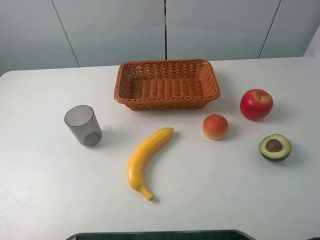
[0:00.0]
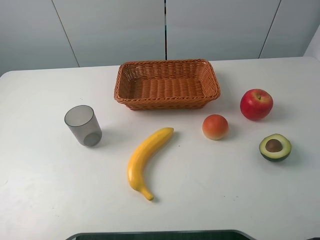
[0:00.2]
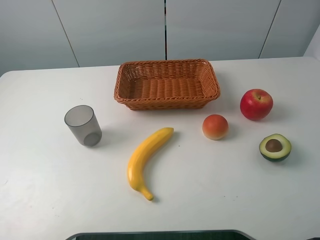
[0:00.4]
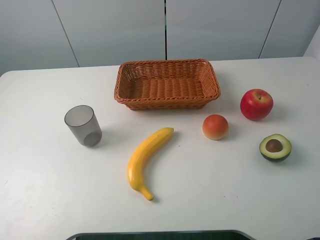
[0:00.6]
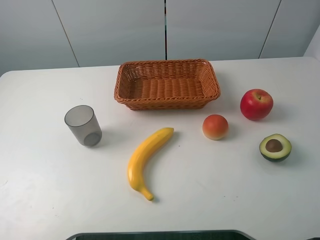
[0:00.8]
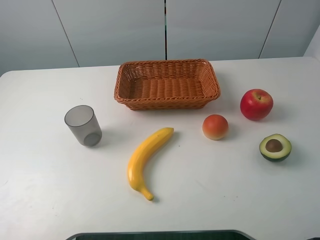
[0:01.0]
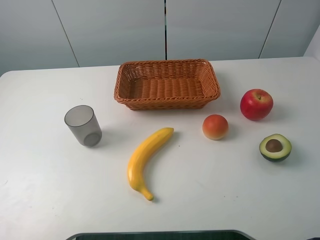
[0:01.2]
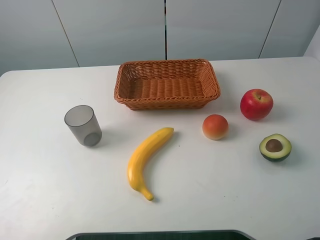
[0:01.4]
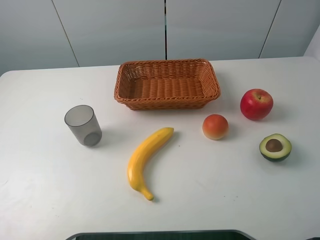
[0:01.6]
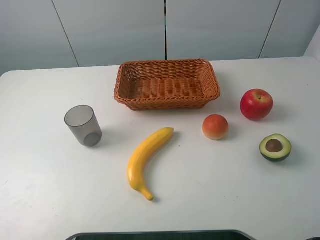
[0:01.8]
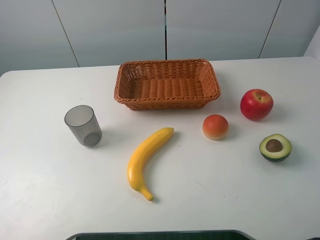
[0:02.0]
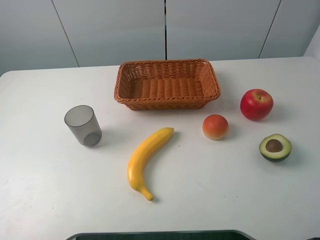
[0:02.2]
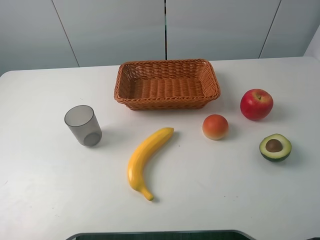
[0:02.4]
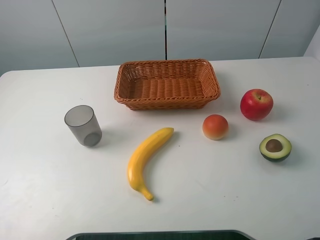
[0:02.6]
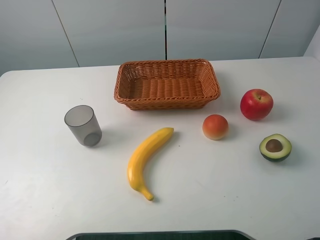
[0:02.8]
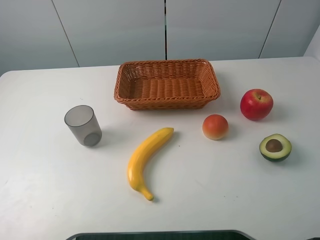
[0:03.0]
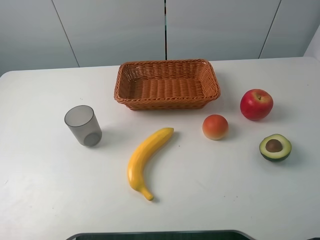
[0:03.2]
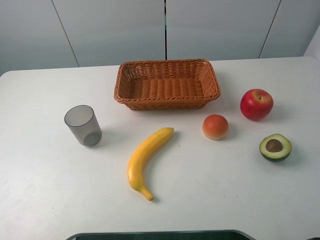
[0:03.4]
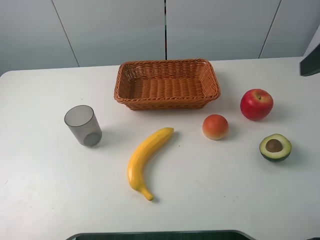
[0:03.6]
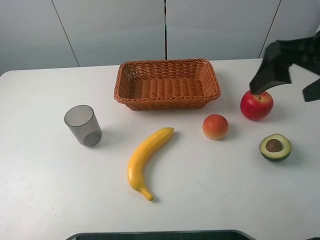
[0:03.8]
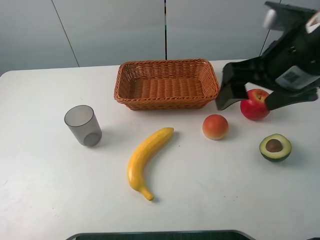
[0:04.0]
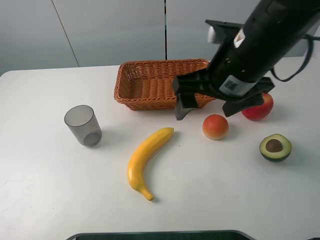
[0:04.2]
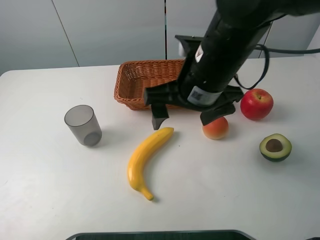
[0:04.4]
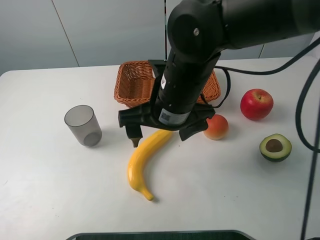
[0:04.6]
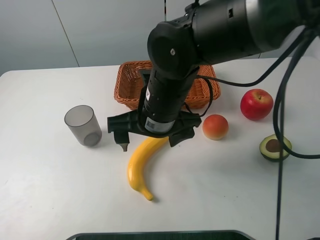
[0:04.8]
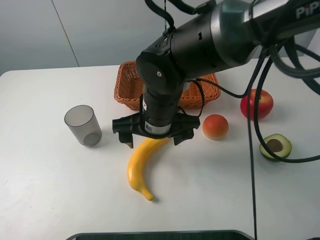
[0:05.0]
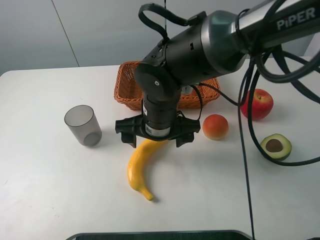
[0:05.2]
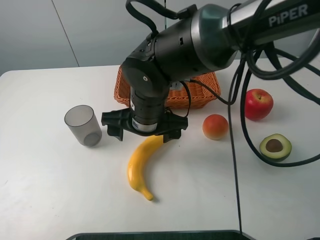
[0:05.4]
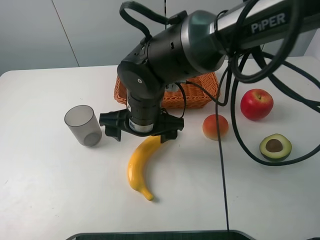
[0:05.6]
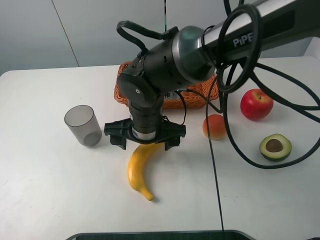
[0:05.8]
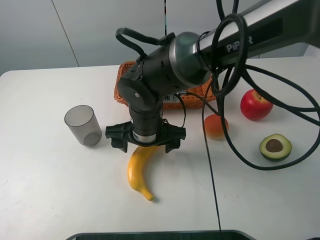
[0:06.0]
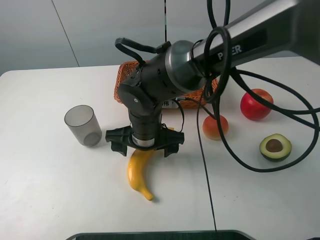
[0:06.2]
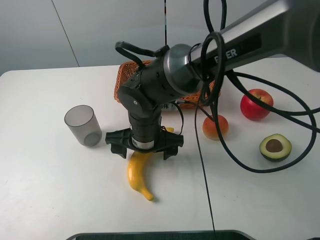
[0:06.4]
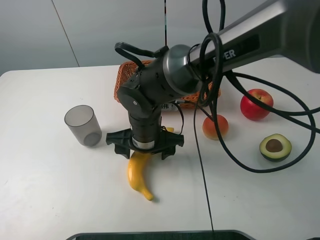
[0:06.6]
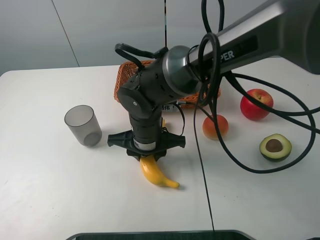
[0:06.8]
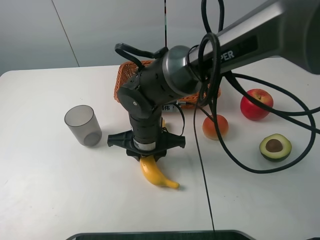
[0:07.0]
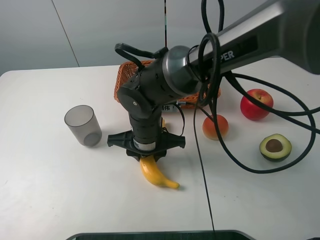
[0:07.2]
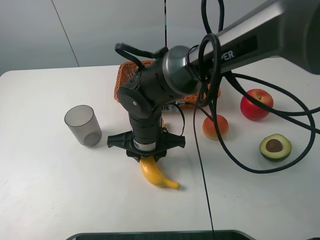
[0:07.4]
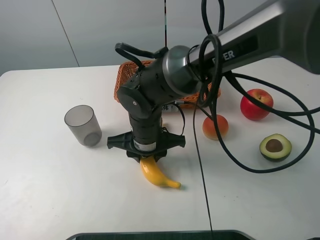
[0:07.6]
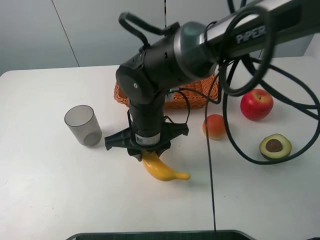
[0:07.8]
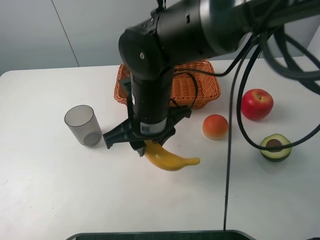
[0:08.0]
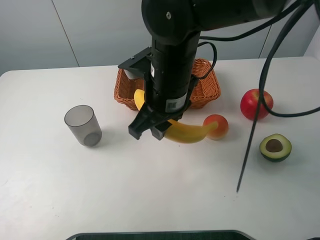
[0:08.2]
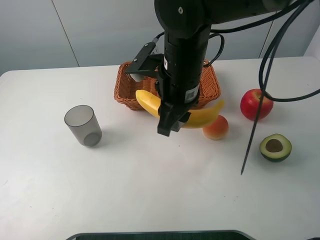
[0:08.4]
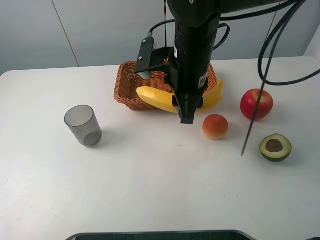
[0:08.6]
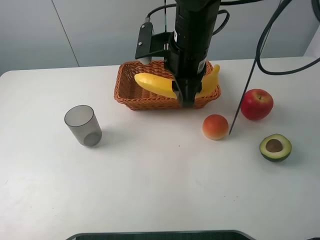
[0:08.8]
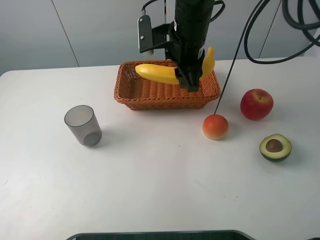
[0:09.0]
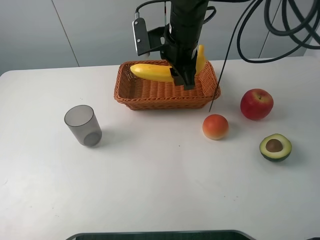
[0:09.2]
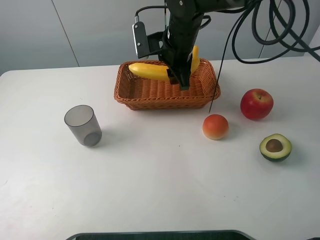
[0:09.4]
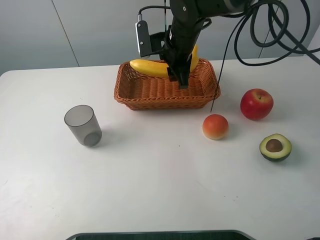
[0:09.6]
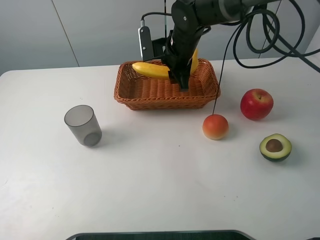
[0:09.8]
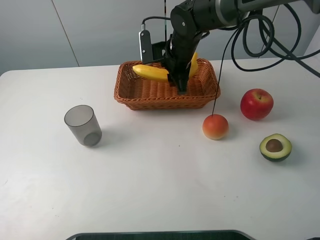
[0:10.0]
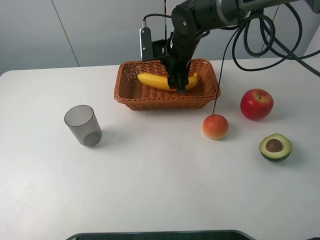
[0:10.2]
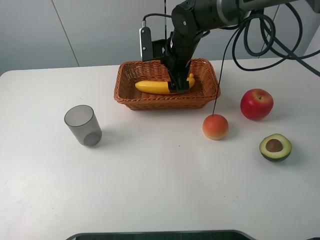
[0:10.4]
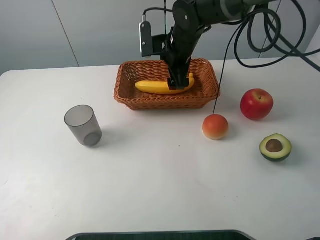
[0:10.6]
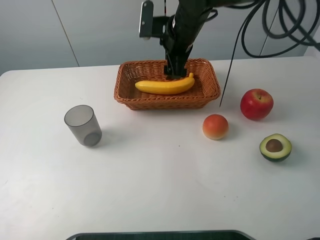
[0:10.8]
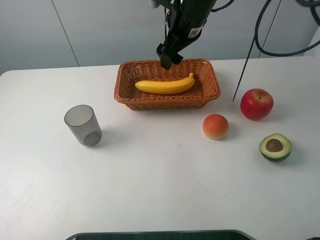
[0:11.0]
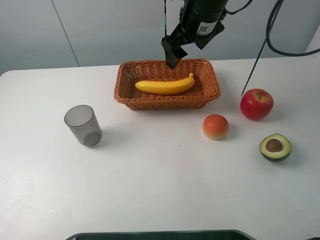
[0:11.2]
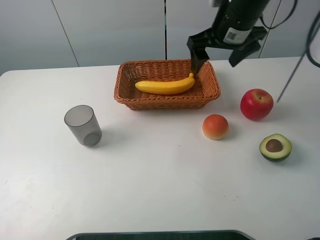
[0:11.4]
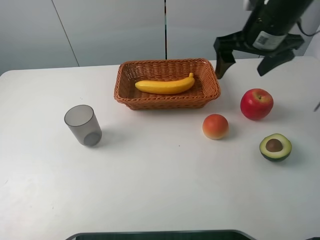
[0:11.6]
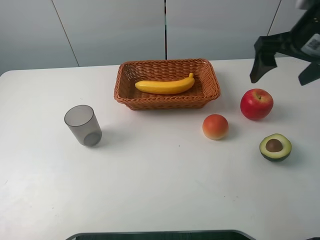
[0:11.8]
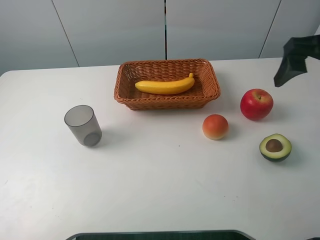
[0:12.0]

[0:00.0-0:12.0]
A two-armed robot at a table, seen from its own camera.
Task of the whole recording: randomly pick up an item from the table and put it in the basket.
Step, 0:00.0 to 0:06.8: Grasp the banana with the right gripper.
Step, 0:07.0 to 0:11.0: Place the banana into the basket with the right gripper.
0:03.0 to 0:04.4: The right gripper travels to the left, downward and forward by roughly 30 cm.
0:04.4 to 0:06.0: The right gripper goes about 15 cm downward and to the left.
0:06.0 to 0:07.6: The right gripper closes.
0:07.6 to 0:09.0: The right gripper heads upward, forward and to the right, covering roughly 20 cm.
0:09.0 to 0:10.4: The right gripper moves downward and forward, approximately 10 cm, and opens up.
0:10.4 to 0:12.0: The right gripper heads to the right, backward and upward, covering some 30 cm.

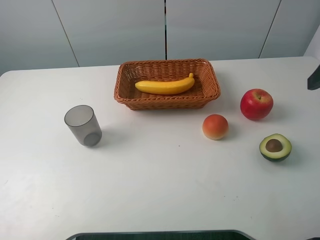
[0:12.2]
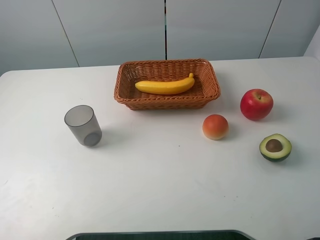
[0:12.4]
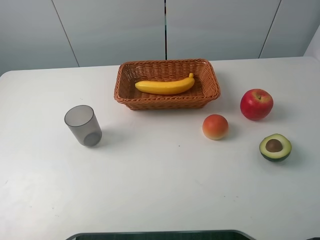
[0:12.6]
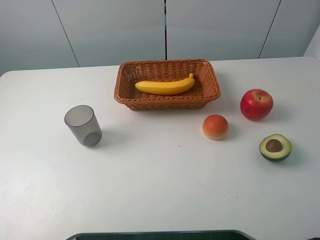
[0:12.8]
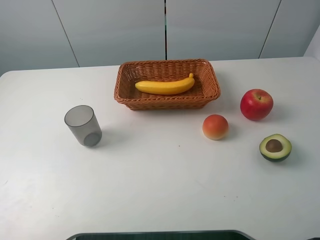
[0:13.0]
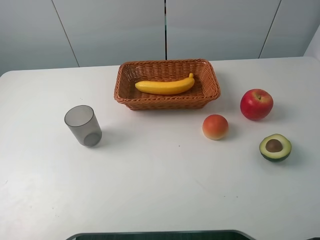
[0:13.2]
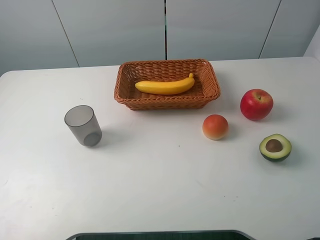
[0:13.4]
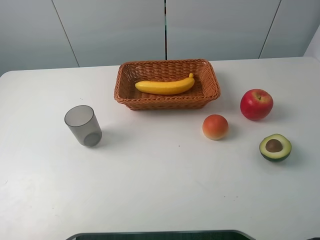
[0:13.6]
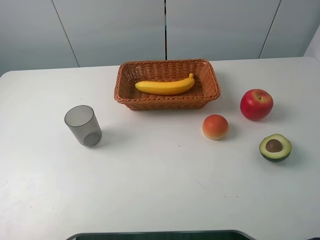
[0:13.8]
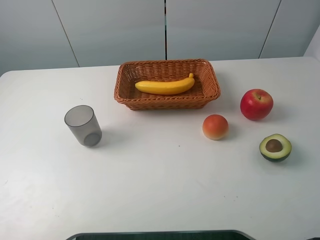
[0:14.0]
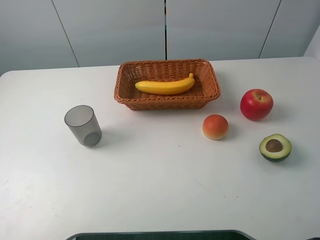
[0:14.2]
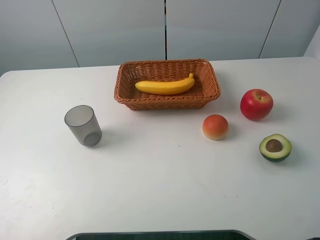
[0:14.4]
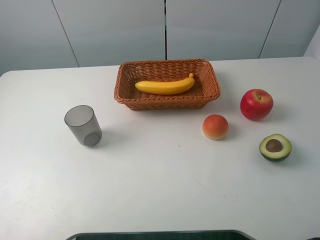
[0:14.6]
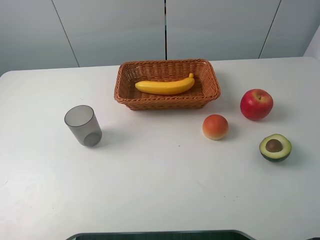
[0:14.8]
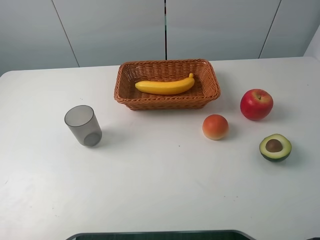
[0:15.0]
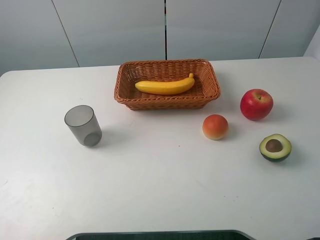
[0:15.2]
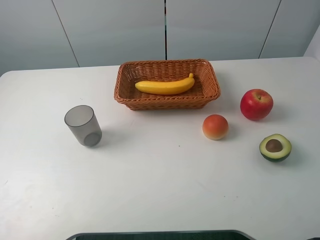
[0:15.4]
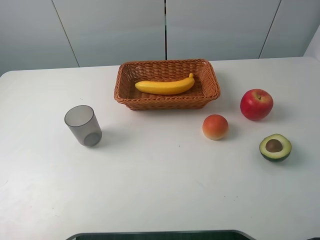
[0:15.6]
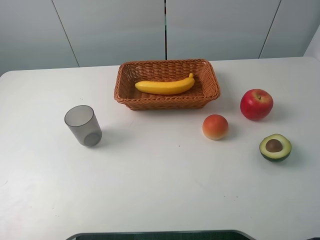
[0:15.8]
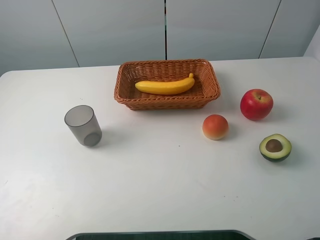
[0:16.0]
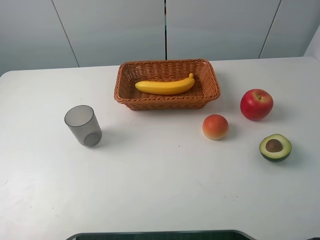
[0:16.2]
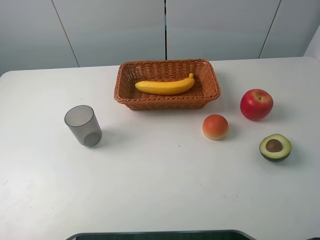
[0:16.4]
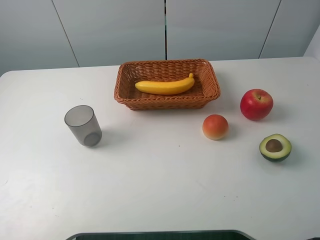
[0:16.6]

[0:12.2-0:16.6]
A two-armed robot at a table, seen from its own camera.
Task of the whole recording: randomly pick up an item from the table and put it in the basket.
0:15.2 to 0:16.6: Both grippers stay put.

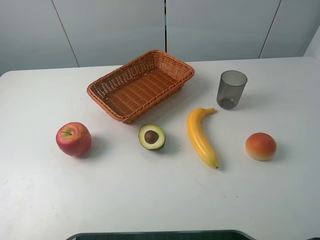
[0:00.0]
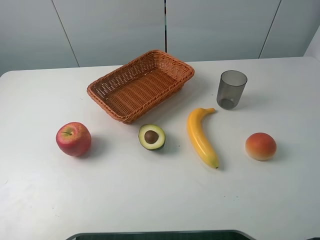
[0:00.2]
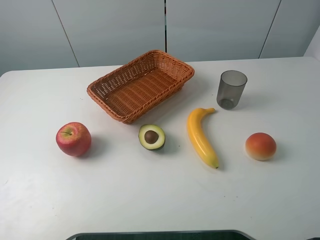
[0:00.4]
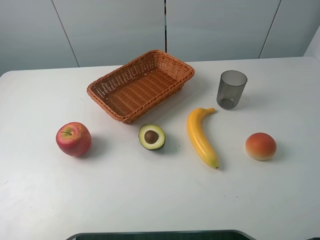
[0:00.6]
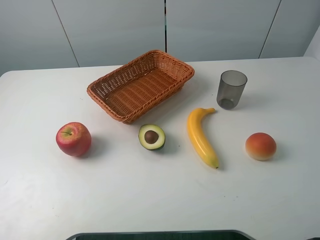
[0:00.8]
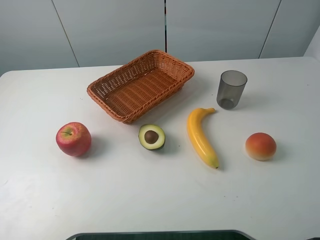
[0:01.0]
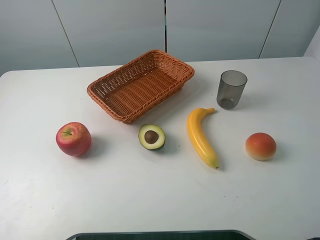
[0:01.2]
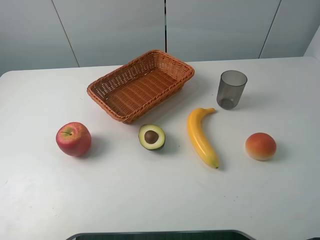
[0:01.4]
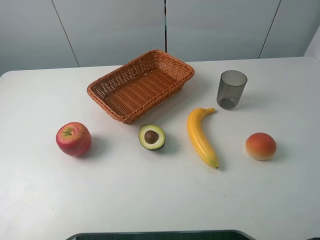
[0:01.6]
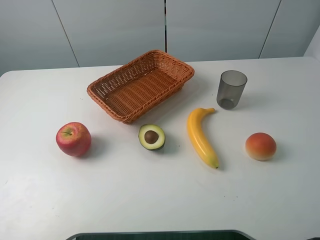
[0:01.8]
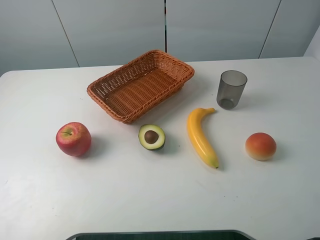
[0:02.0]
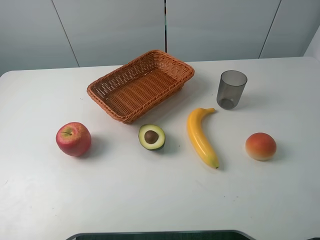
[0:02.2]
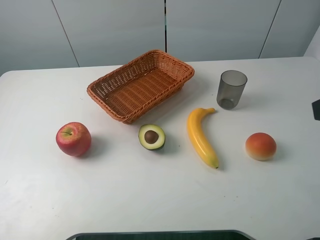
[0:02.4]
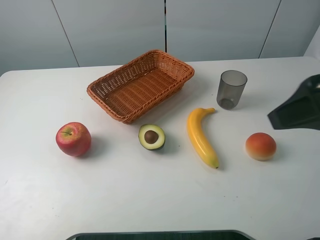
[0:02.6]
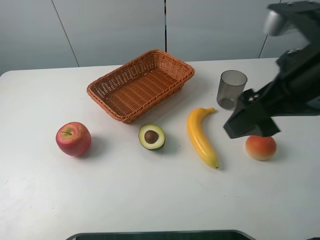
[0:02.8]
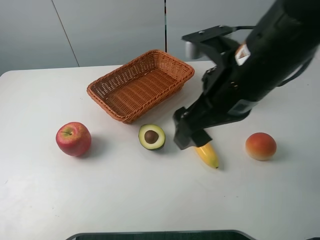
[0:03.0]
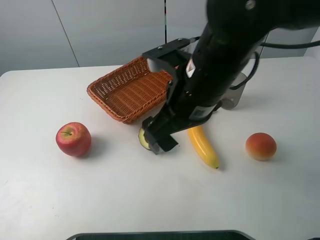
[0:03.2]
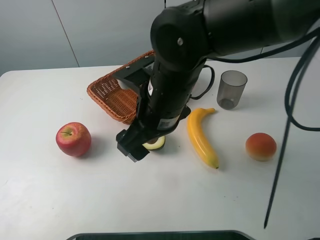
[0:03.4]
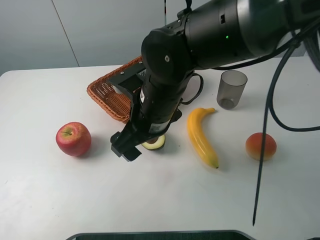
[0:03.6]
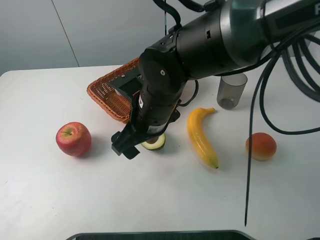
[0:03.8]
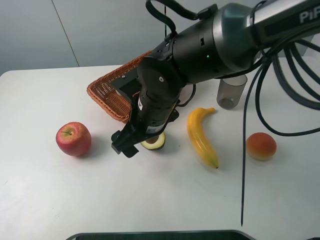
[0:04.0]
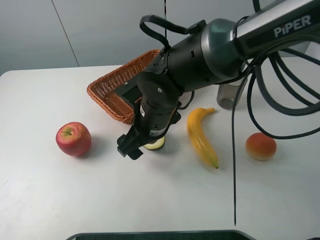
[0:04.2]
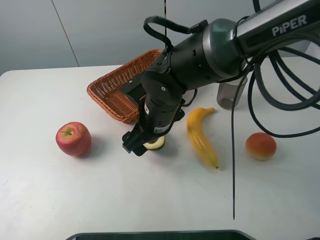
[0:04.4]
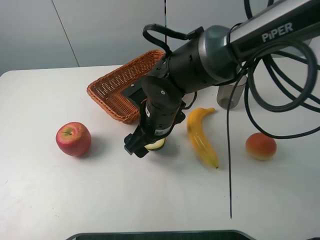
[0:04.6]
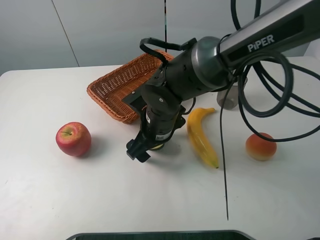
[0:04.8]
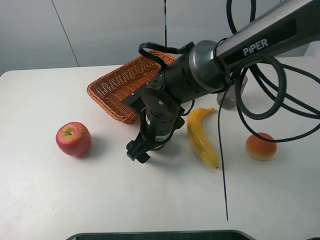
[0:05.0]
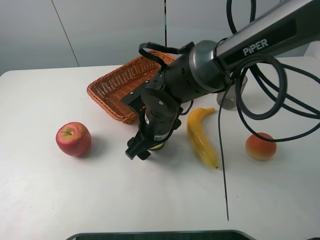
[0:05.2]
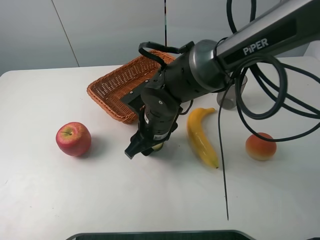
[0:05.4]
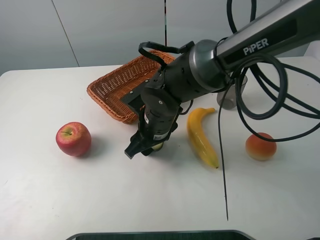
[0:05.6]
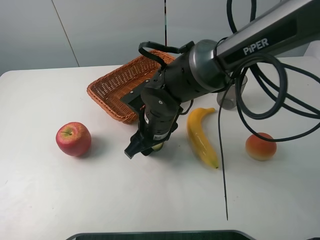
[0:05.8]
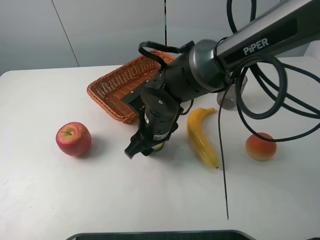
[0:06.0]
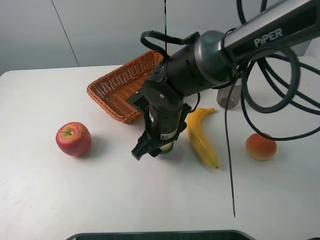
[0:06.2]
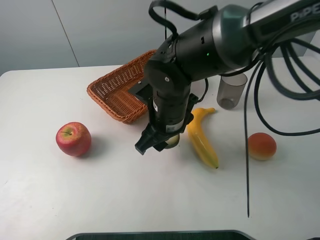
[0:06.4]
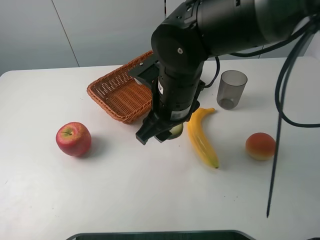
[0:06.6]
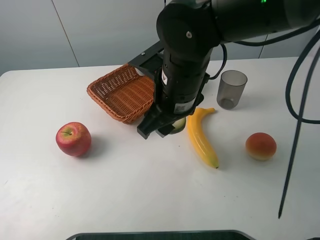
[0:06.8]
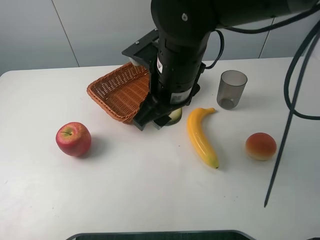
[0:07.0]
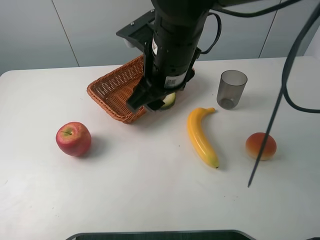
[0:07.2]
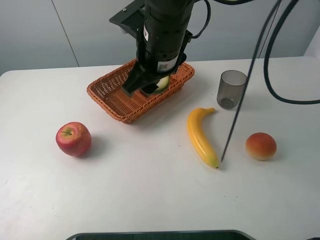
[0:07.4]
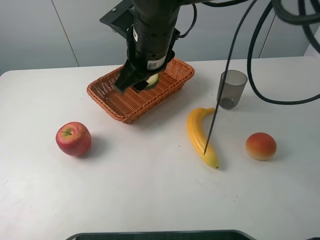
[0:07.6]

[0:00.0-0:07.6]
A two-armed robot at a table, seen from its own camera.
Task of the whole recording: randomly pick up an item from the table and put it in the basket.
Step, 0:00.0 to 0:05.4: Grasp the avocado with the right gripper.
0:00.0 to 0:01.6: Neither gripper changes place.
0:01.6 to 0:03.0: The right gripper shifts roughly 25 cm to the left and forward.
0:03.0 to 0:04.6: The right gripper goes approximately 15 cm downward, to the left and forward.
0:04.6 to 0:06.0: The right gripper closes its fingers.
0:06.0 to 0:07.6: The right gripper goes roughly 15 cm upward.
